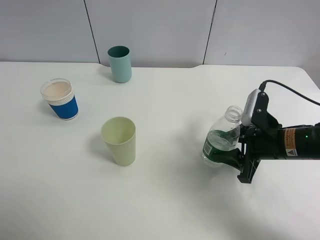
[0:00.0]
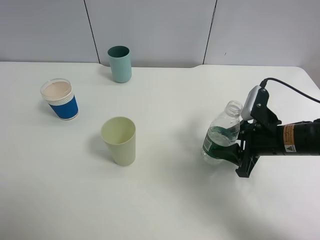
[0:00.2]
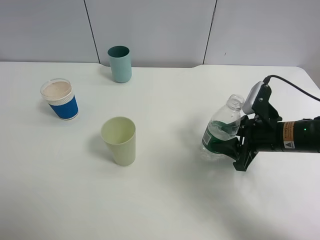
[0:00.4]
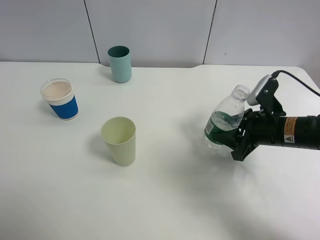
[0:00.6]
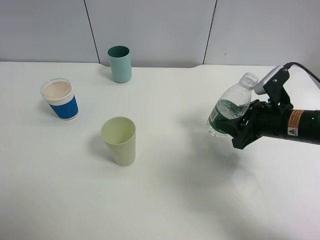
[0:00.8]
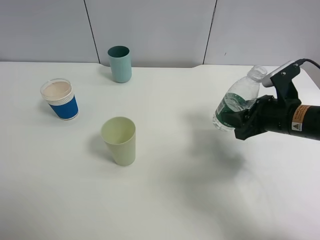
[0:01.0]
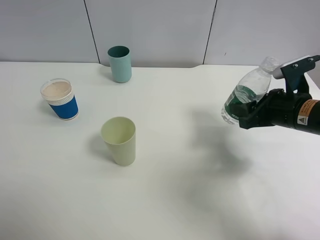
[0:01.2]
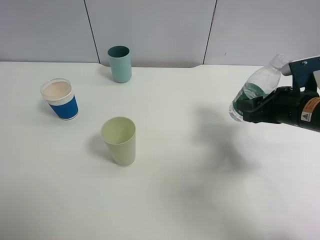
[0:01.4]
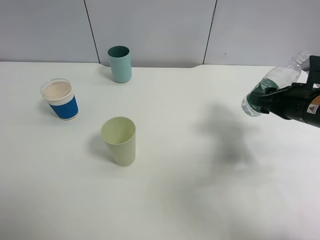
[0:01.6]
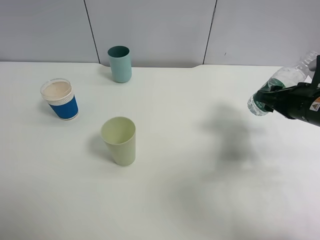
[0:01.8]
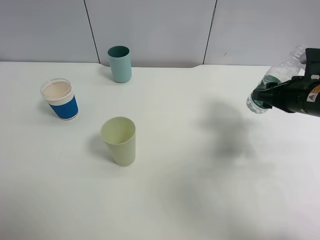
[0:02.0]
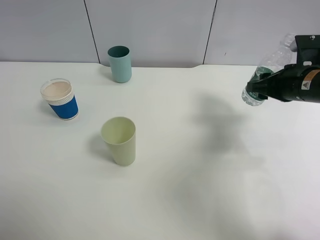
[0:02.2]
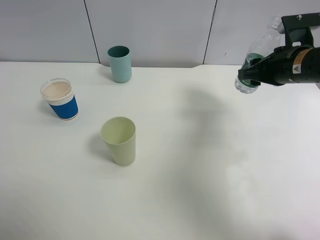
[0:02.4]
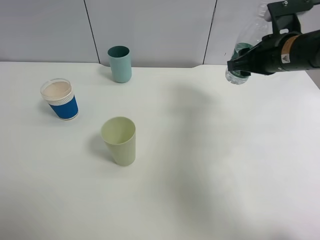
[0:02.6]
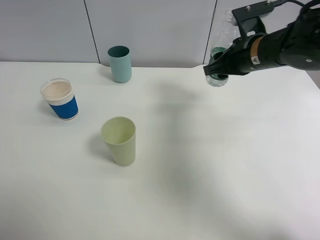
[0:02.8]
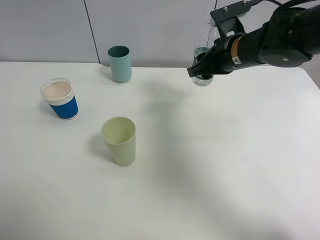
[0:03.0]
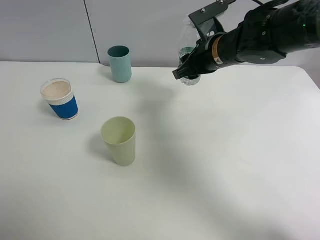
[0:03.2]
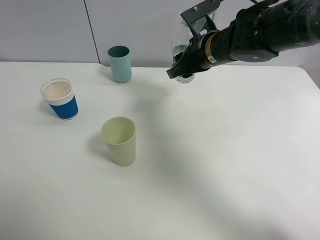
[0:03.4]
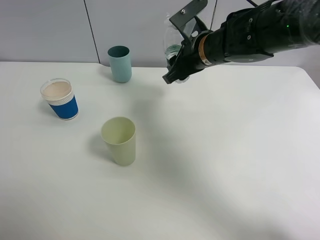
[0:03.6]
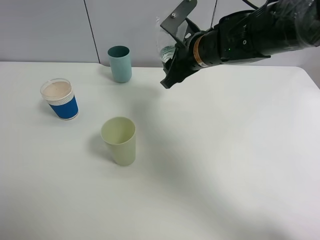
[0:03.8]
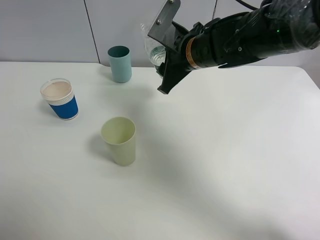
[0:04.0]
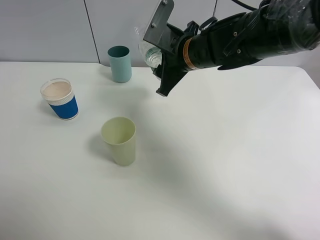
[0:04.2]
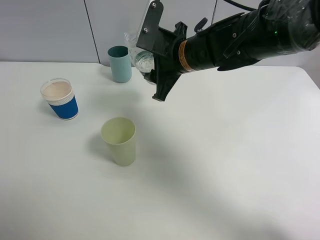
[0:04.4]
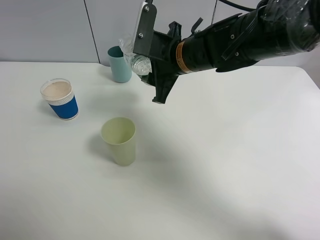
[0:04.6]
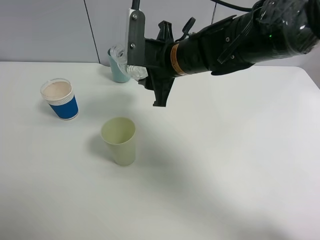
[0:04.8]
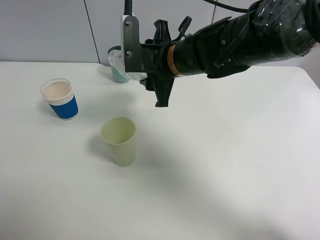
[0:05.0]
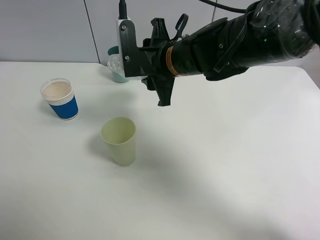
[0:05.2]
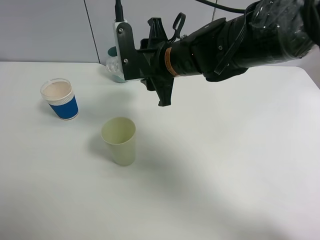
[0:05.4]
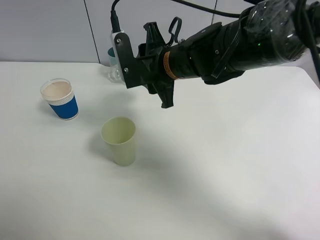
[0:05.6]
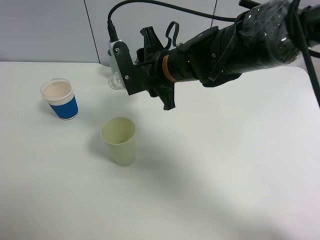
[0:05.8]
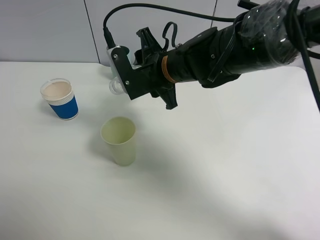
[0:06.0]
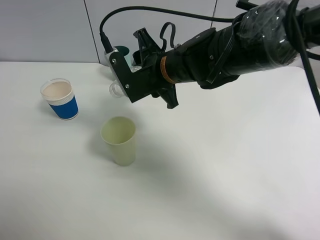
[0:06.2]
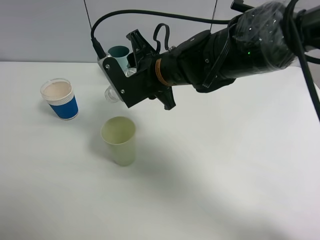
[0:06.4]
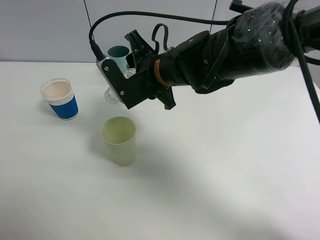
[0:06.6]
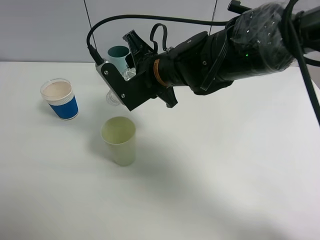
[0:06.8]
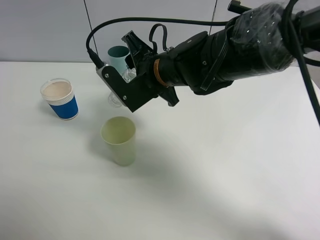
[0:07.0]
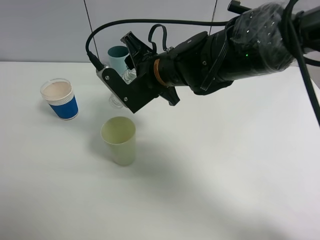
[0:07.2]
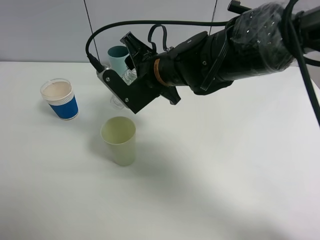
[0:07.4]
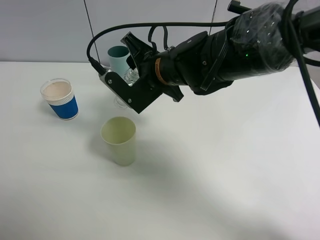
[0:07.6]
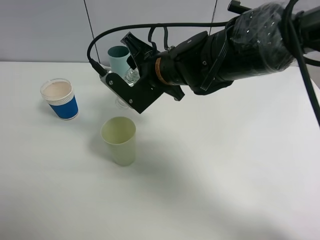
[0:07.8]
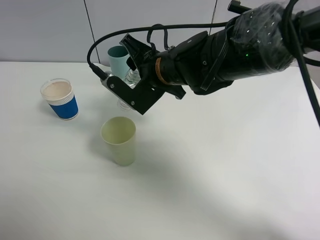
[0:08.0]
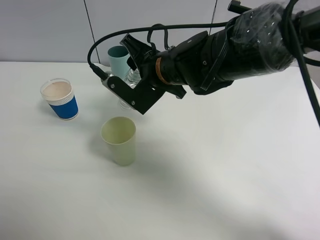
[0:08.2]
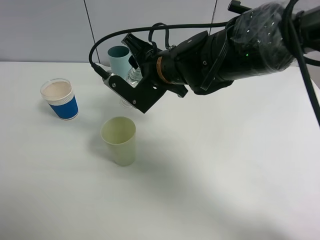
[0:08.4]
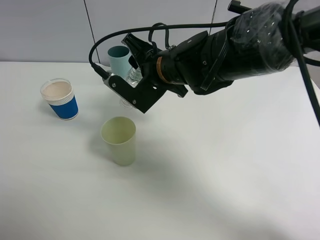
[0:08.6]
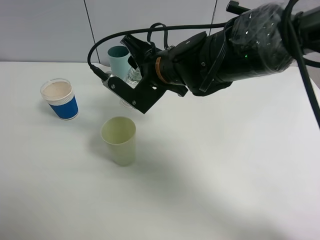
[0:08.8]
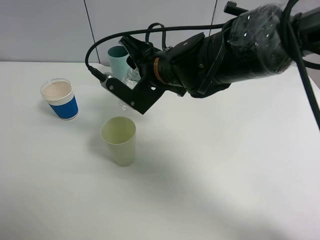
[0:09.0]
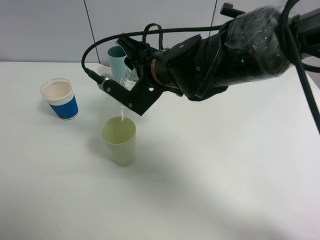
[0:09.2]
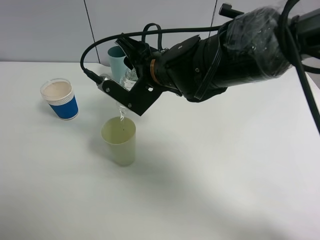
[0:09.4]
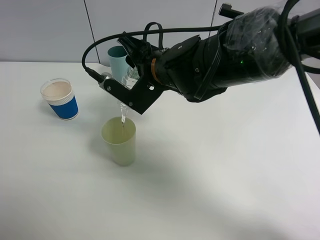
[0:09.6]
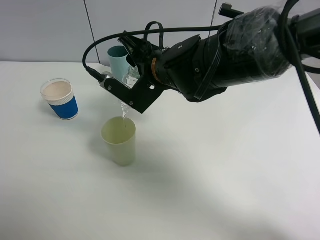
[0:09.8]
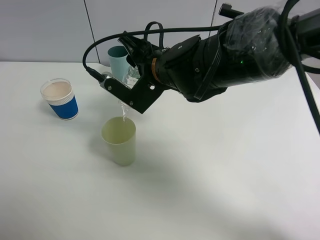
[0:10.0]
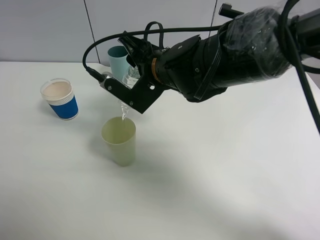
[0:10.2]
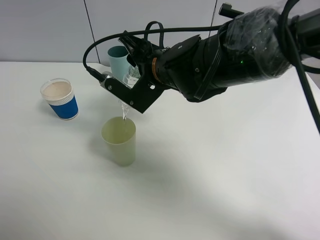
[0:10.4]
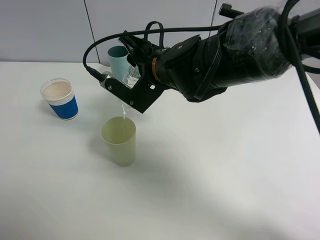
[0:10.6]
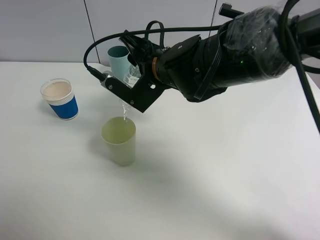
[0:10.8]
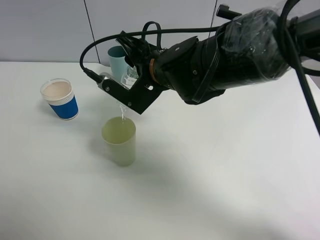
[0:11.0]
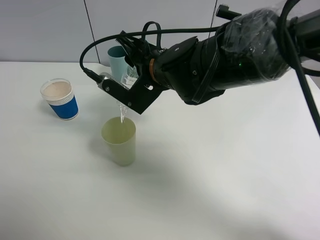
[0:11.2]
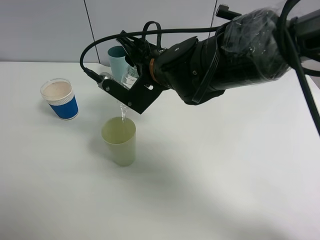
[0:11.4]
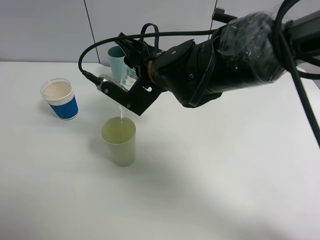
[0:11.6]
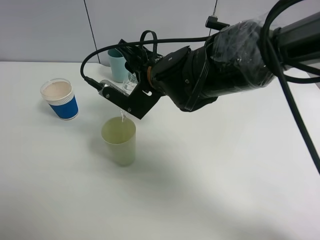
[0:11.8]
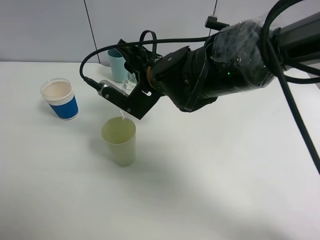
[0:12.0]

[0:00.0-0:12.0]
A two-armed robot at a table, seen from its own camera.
Task of the whole recording: use a clamp to hold the bottle of the drink, pour the beverage into a random cup, then clamp the cup containing the drink and pour the drink into another random cup.
0:00.0 to 0:01.6: The right gripper shifts roughly 5 cm upward.
0:01.6 to 0:03.0: The right gripper is displaced to the left and forward by some 15 cm.
0:03.0 to 0:04.4: The right gripper travels to the left by some 10 cm.
0:07.6 to 0:09.0: The grippers make only small movements.
0:09.0 to 0:10.4: Neither gripper changes place.
0:10.4 to 0:12.0: Neither gripper changes place.

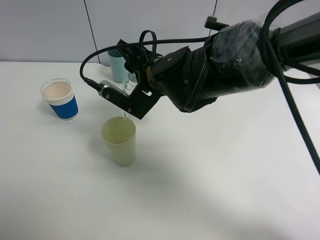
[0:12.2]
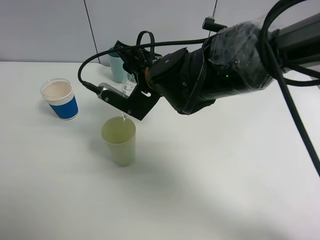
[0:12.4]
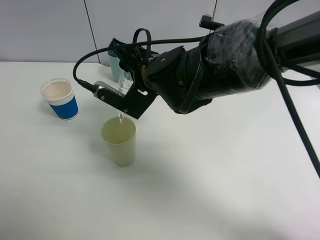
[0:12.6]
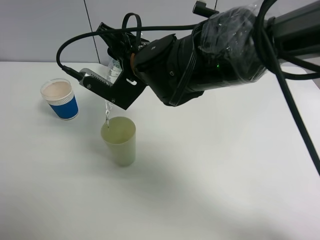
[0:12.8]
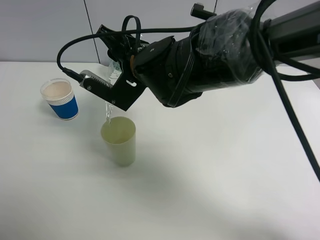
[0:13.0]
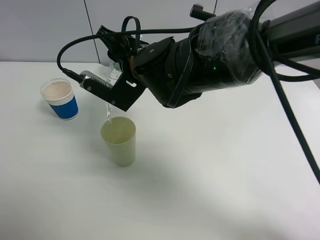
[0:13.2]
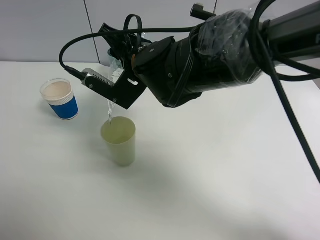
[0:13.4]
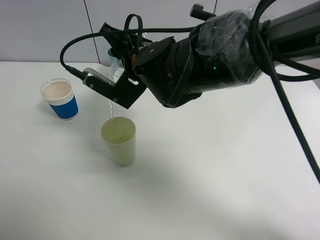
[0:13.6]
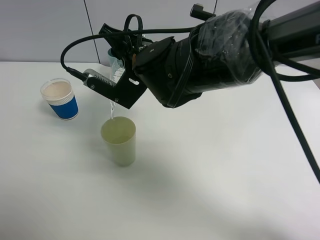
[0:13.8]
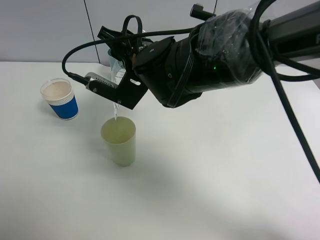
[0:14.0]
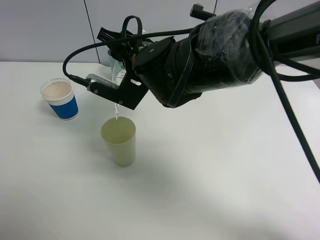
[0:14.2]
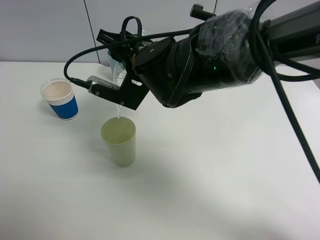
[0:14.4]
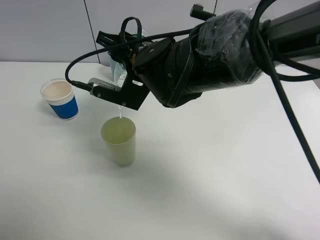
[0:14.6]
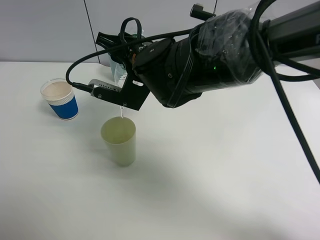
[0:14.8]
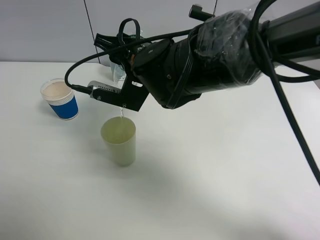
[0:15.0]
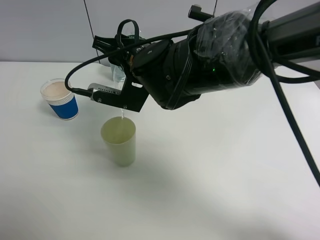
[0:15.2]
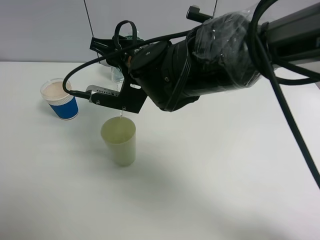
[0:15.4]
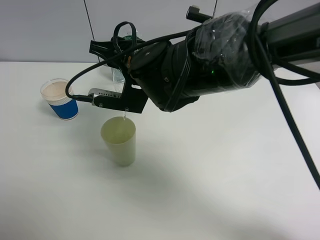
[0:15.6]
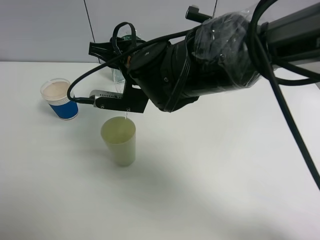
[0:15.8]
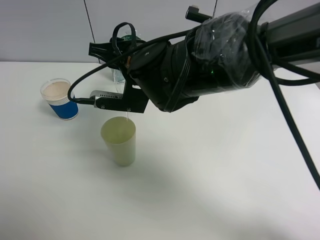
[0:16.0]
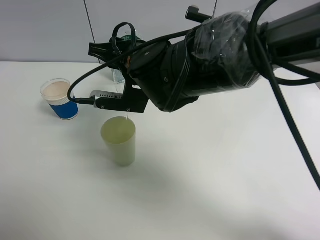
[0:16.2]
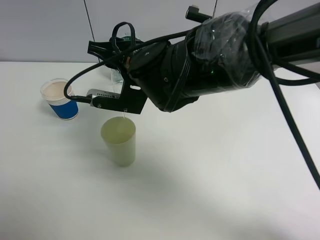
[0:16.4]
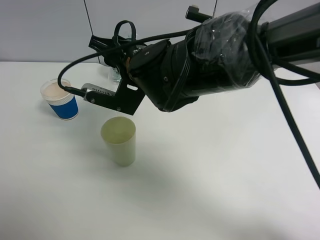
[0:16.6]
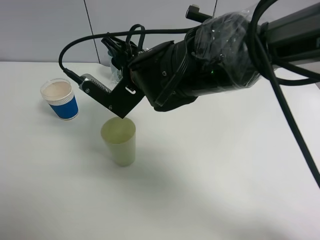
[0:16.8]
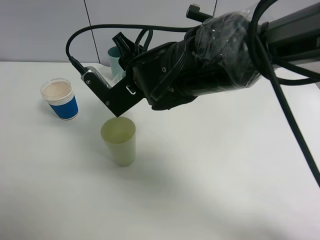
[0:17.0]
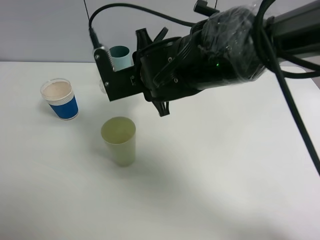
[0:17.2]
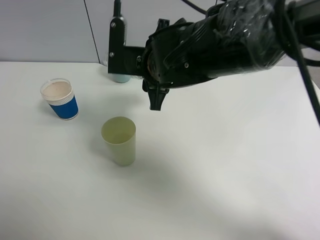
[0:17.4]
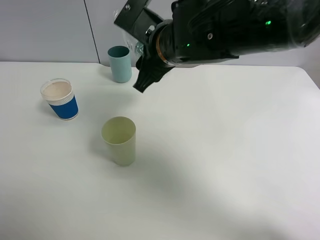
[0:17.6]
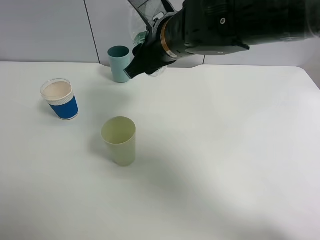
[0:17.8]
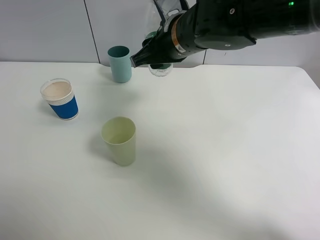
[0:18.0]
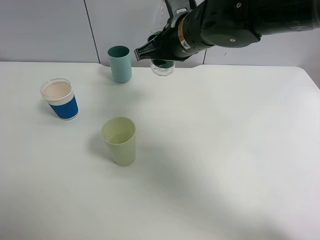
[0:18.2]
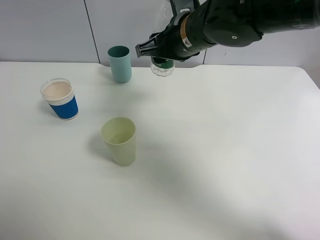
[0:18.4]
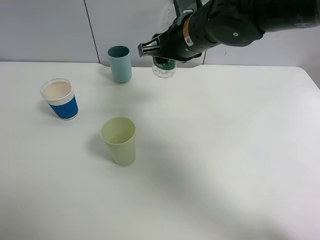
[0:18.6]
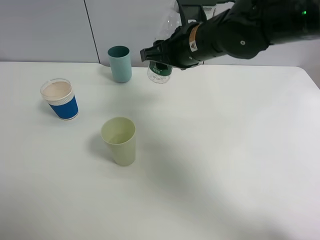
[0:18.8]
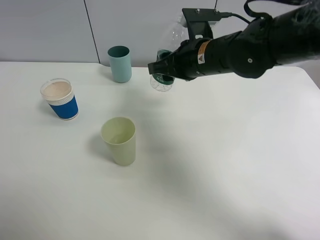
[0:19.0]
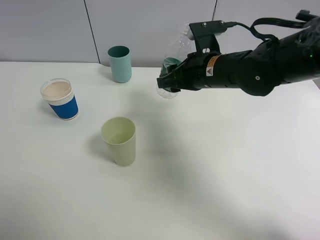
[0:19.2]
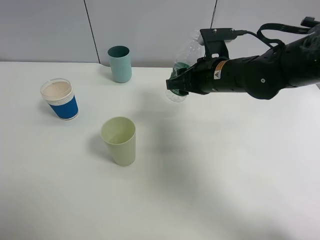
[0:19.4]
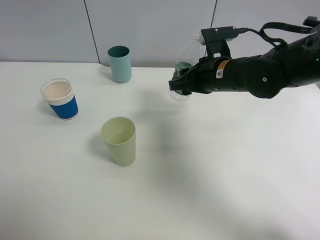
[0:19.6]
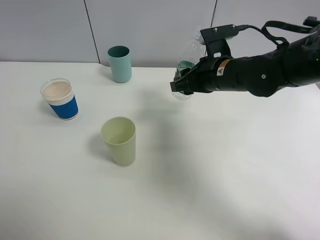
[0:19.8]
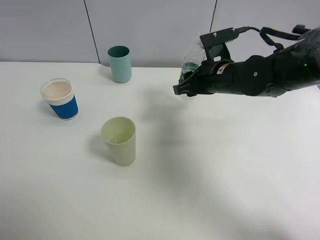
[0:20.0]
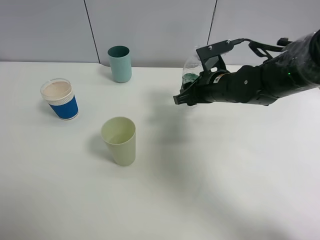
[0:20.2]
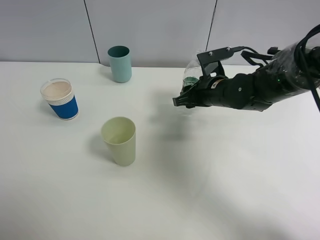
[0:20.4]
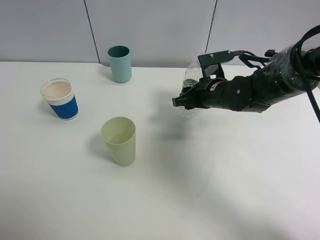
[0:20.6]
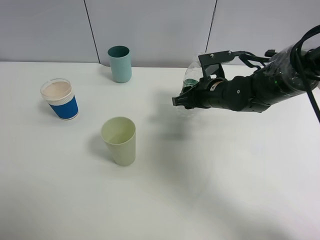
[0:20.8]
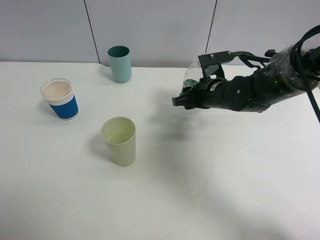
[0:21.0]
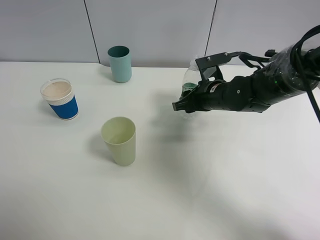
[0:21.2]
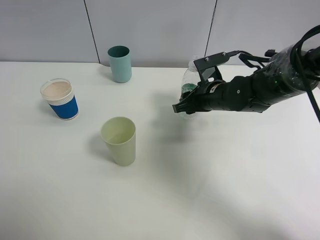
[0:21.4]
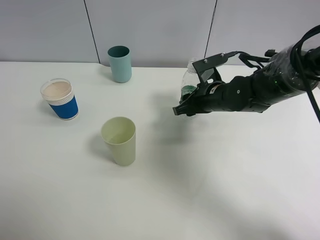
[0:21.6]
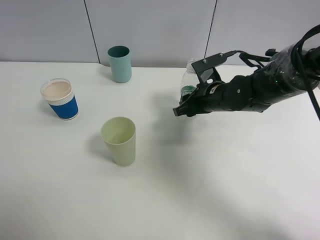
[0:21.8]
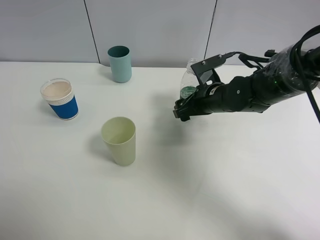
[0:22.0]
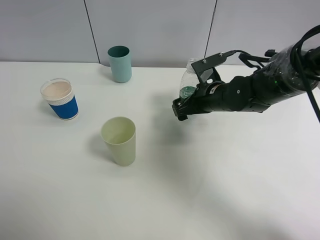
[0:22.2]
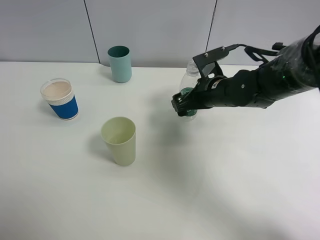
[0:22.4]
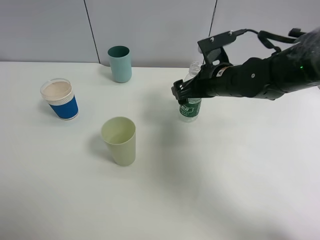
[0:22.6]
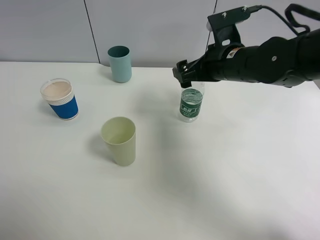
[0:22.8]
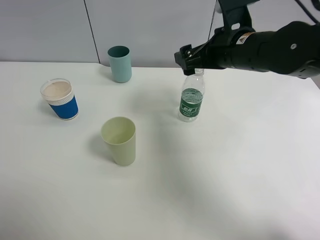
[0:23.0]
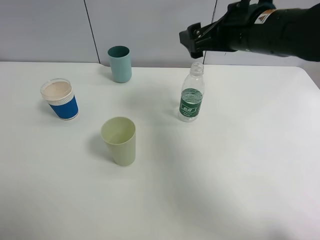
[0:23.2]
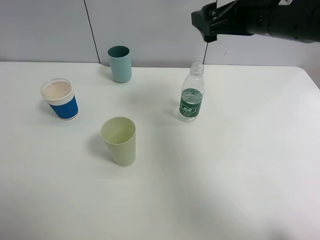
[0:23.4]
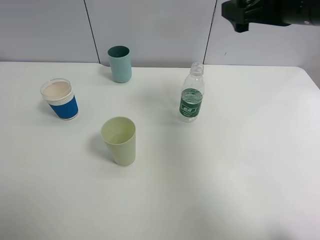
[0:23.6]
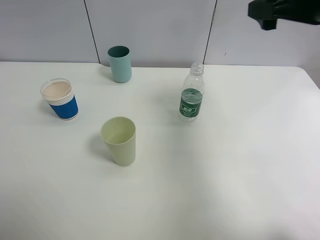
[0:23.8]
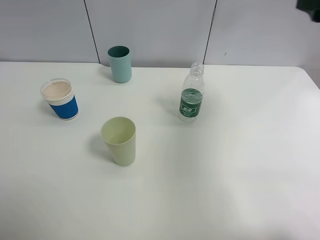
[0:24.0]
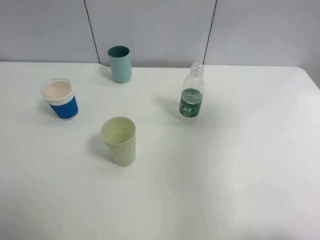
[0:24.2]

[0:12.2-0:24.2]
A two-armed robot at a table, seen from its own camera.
Task of the whole recording: use a clamp to hold the bottle of the drink, pour the beverage into a random cup, then clamp the cup containing the drink and pour the drink into another random cup.
Step, 0:12.2 to 0:17.0: Pour water into the green plastic cup with right gripper.
Step, 0:17.2 to 0:22.4: Place the water bottle on the table with right gripper.
0:12.2 to 0:15.2: The grippers make only small movements.
0:15.2 to 0:16.6: The grippers stay close to where they were, moving slightly.
0:16.6 to 0:18.2: The right gripper travels to the right by roughly 10 cm.
0:18.2 to 0:19.8: The right gripper travels to the right and downward by roughly 10 cm.
0:19.8 to 0:21.2: The right gripper shifts about 5 cm downward.
0:21.2 to 0:22.6: The right gripper travels upward by some 5 cm, and opens its fingers.
0:22.6 to 0:24.2: The right gripper is displaced upward, to the right and backward by about 30 cm.
